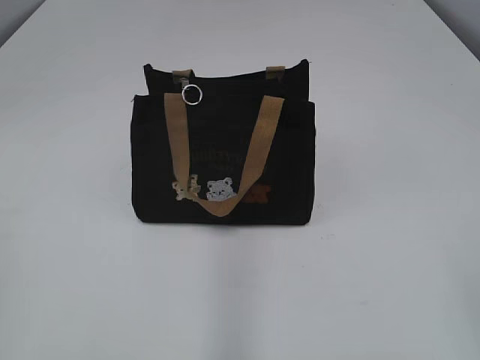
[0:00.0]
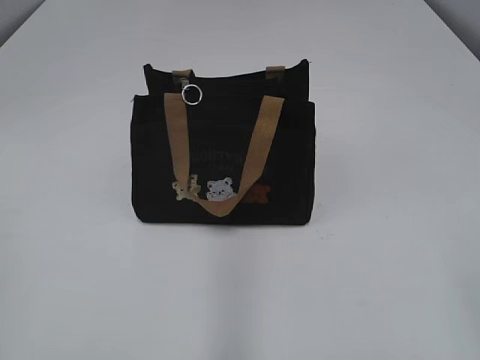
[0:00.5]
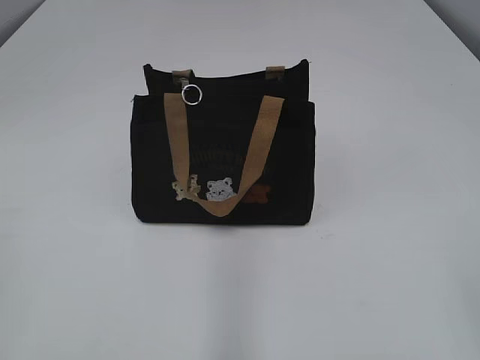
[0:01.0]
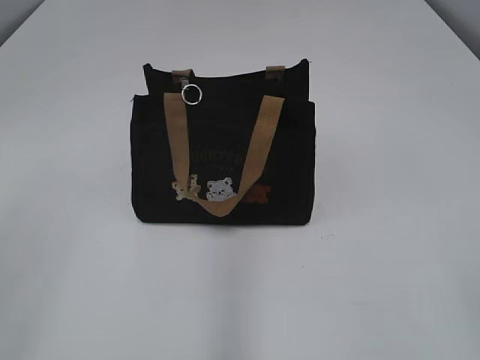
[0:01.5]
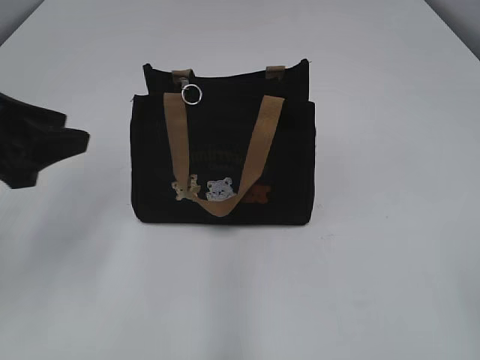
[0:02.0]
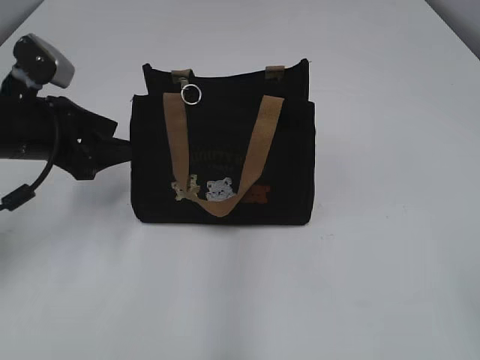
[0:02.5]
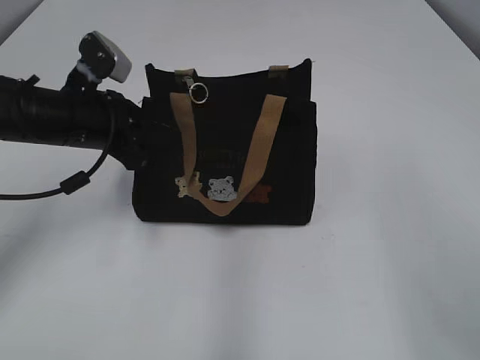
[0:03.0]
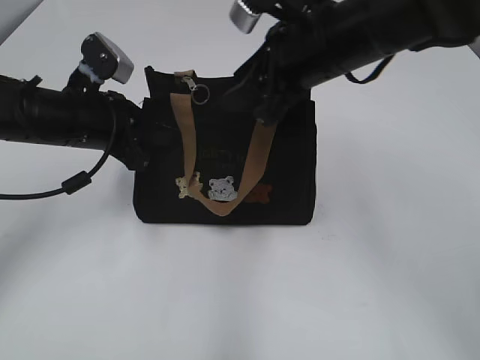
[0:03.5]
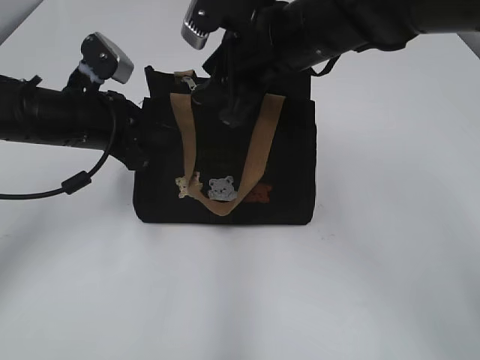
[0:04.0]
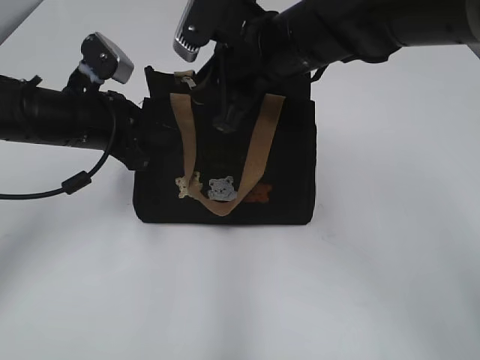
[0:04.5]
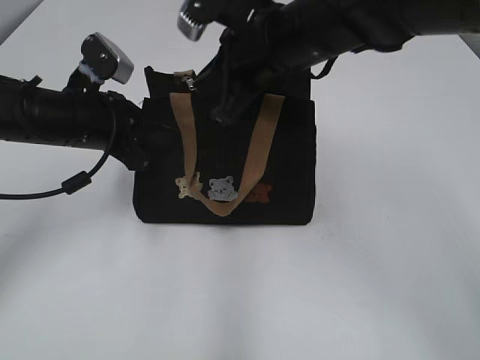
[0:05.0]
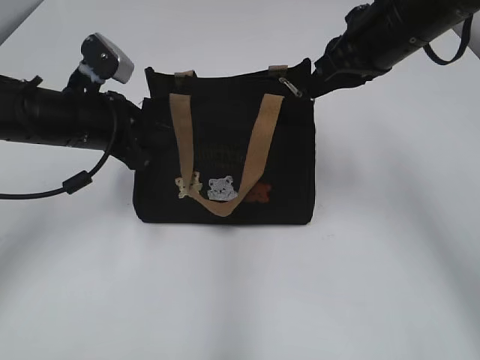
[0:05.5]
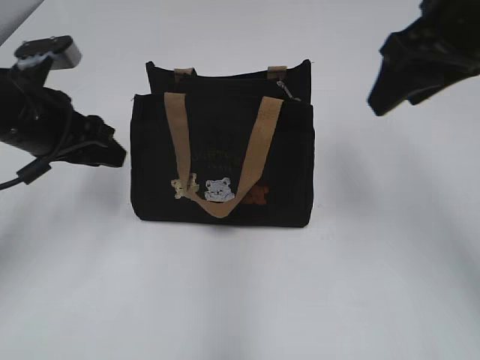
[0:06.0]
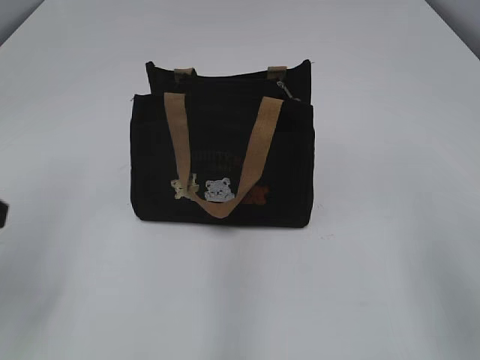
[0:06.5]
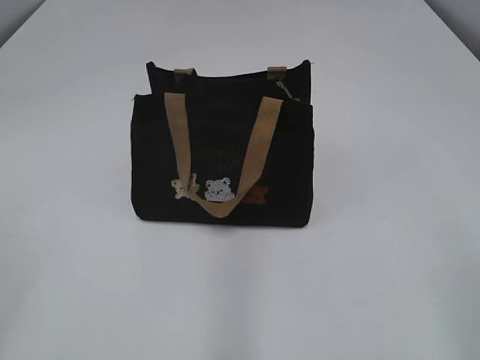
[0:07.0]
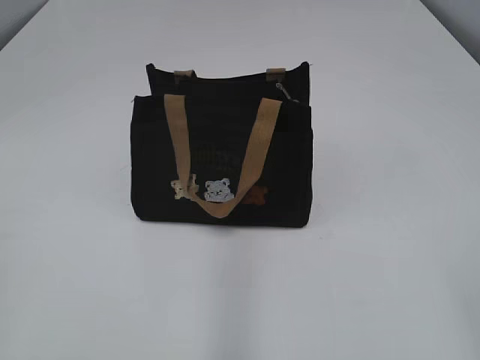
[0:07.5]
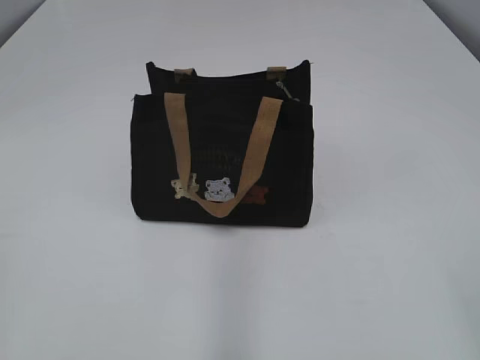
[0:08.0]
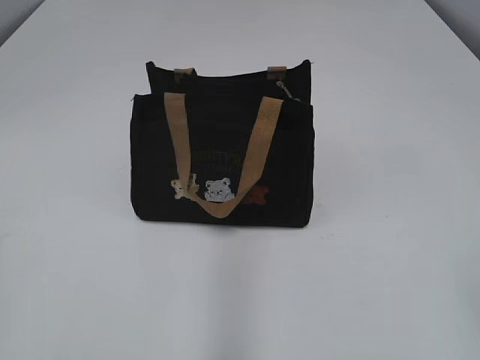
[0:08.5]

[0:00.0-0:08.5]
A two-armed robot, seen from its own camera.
Step, 0:00.0 to 0:05.5: Pull open the zipper with your right hand.
0:02.0 to 0:04.0: The right gripper goes some 40 cm forward and to the left. The left gripper travels forward, downward and to the right by about 20 cm, and closes up.
0:04.0 to 0:06.5: The right gripper moves backward and to the right, some 25 cm, and closes, then opens again; the left gripper moves backward, upward and to the left, roughly 15 cm, and opens its fingers.
0:06.5 to 0:08.5: The two grippers go approximately 20 cm backward.

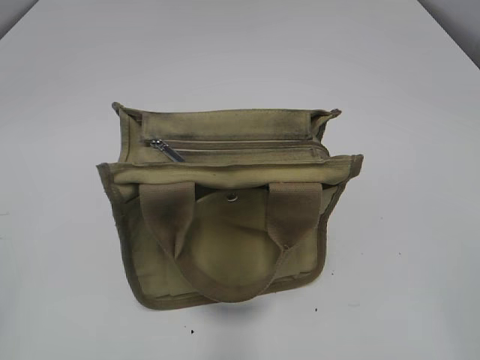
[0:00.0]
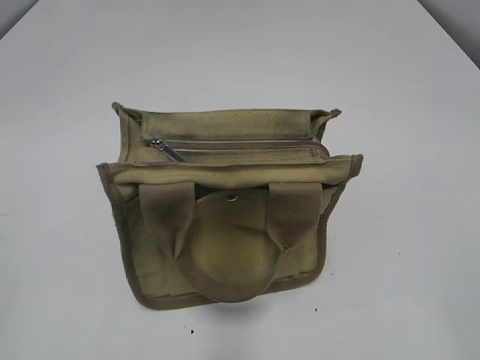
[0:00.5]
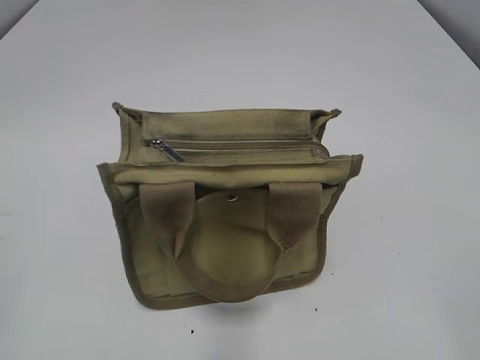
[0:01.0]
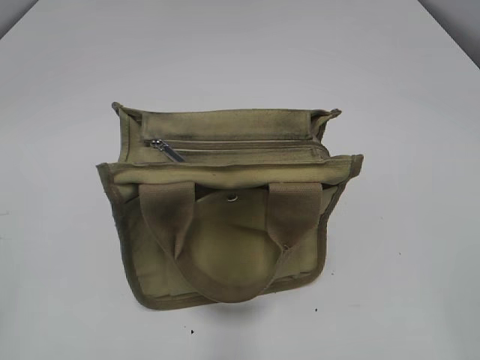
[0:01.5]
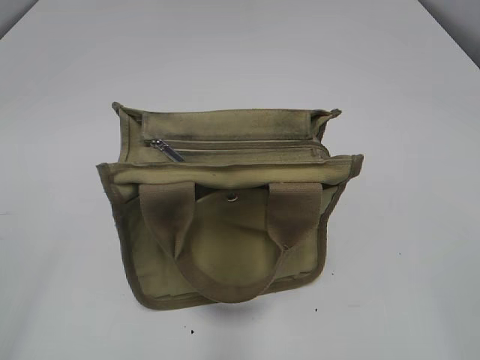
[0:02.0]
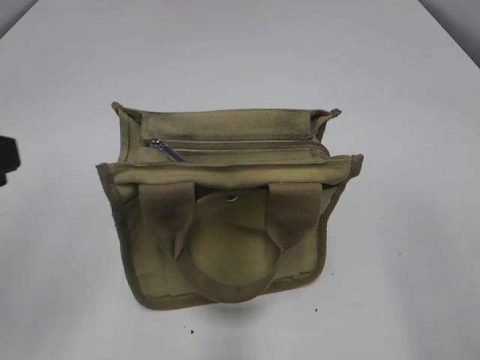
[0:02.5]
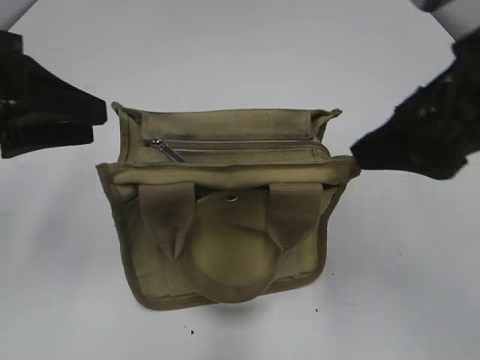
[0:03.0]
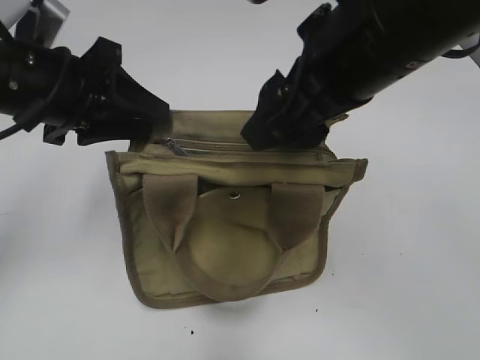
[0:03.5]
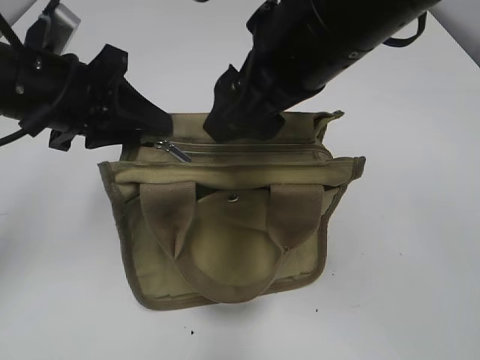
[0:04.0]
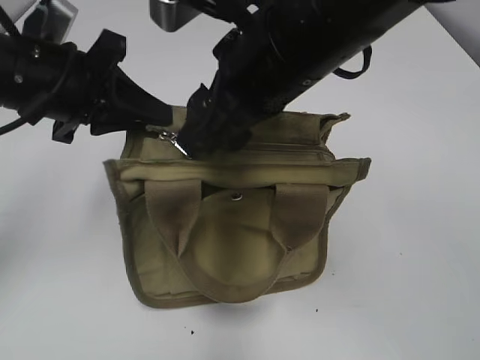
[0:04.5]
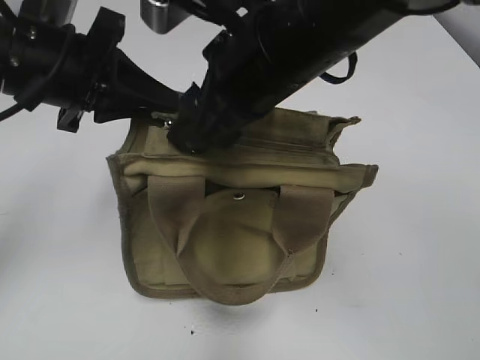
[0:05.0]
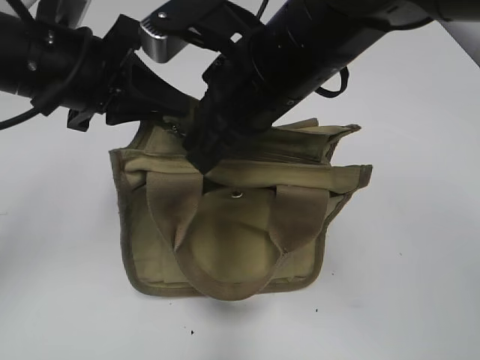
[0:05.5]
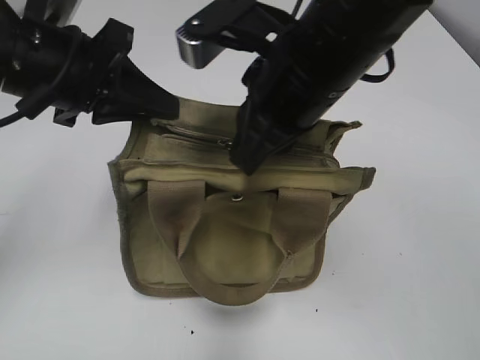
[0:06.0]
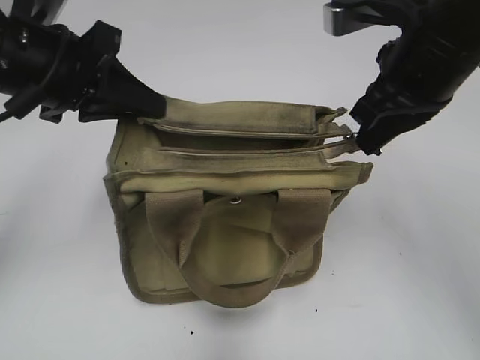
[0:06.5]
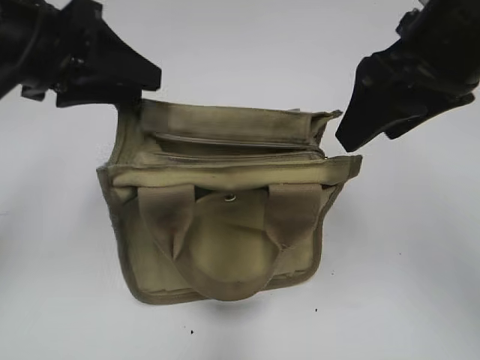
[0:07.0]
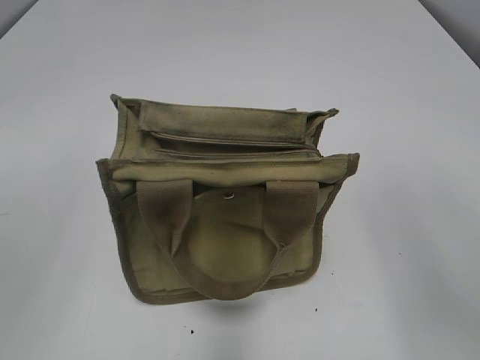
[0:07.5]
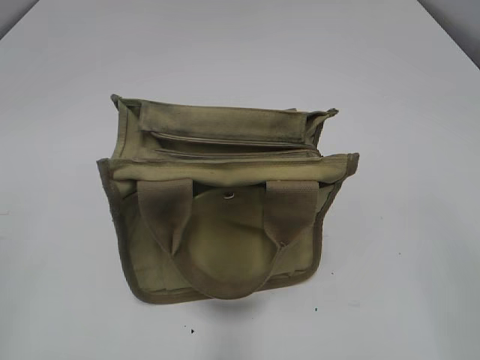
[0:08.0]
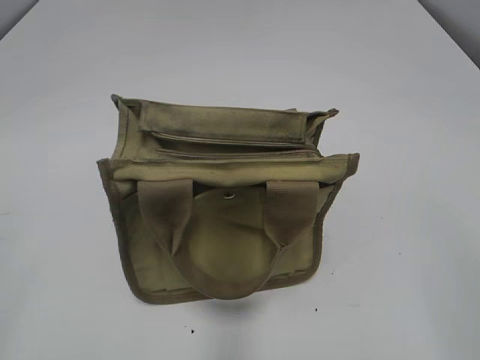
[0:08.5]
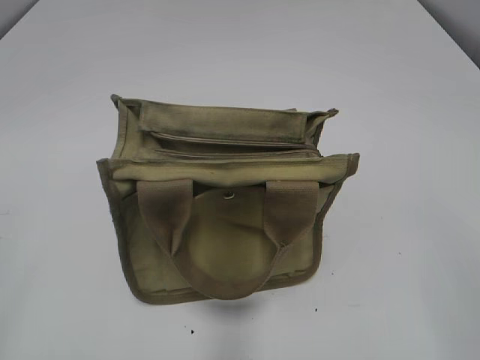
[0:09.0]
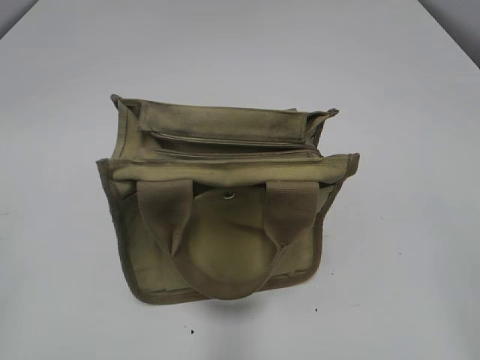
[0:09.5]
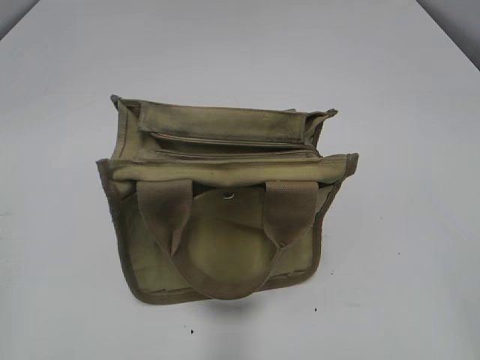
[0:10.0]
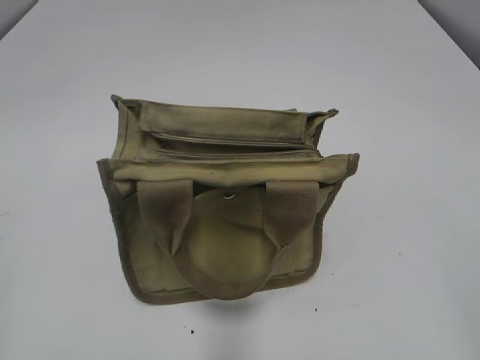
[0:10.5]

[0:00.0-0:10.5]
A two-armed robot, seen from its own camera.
Step, 0:00.0 to 0:06.5: Pull open the zipper with your right hand.
0:02.0 to 0:04.0: The right gripper travels forward and to the left by roughly 35 cm. The left gripper is displaced forward and to the right by about 30 cm.
0:04.0 to 0:06.5: The left gripper closes. The right gripper heads to the right, covering some 10 cm, and closes up.
0:06.5 to 0:08.5: The left gripper goes approximately 30 cm backward and to the left, and opens its fingers; the right gripper is displaced backward and to the right by about 30 cm, and opens.
